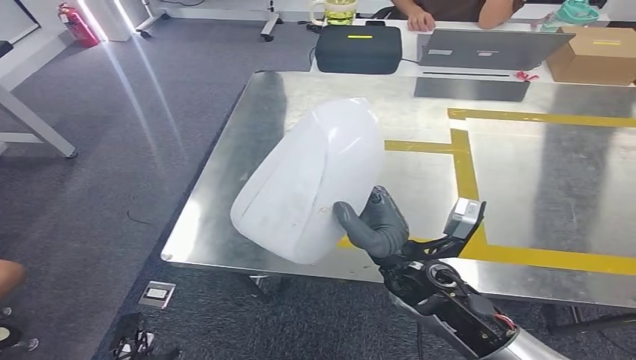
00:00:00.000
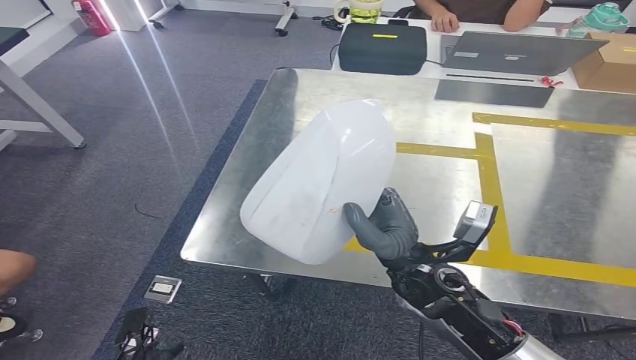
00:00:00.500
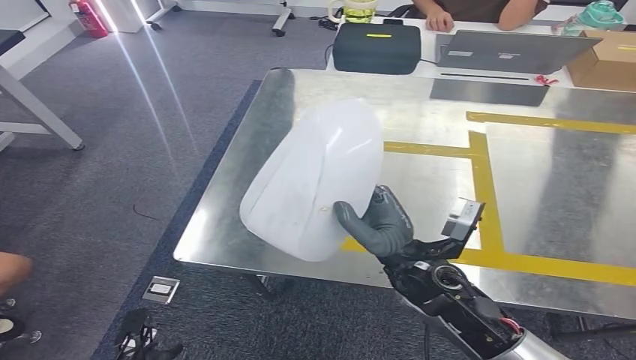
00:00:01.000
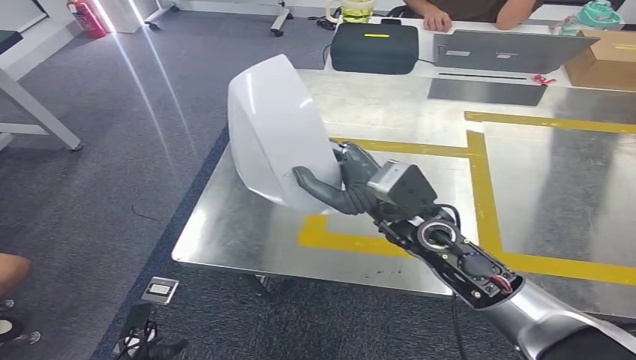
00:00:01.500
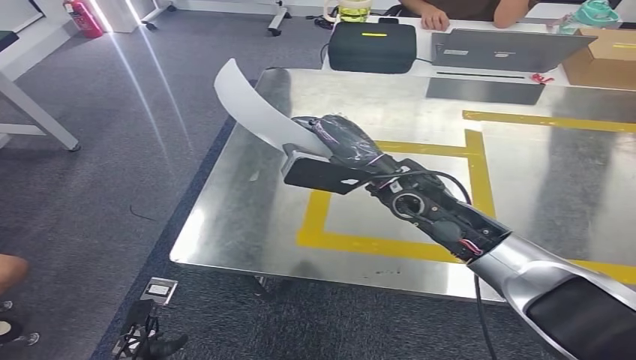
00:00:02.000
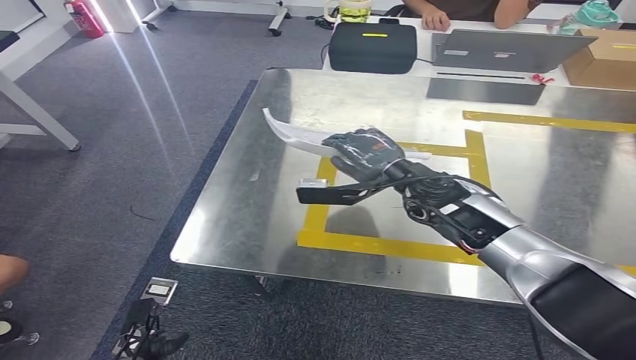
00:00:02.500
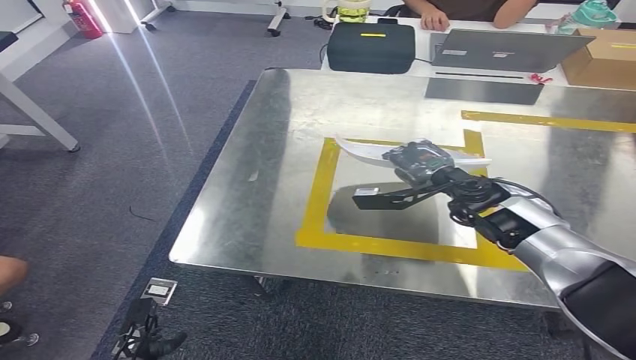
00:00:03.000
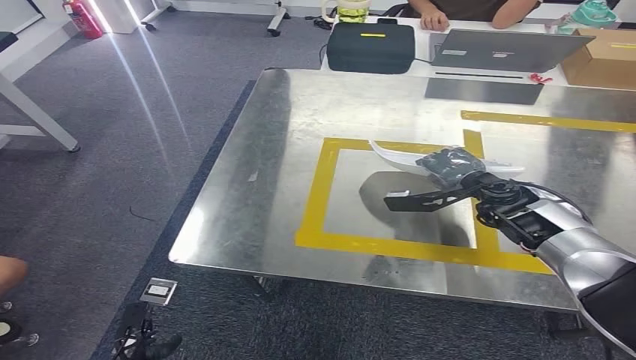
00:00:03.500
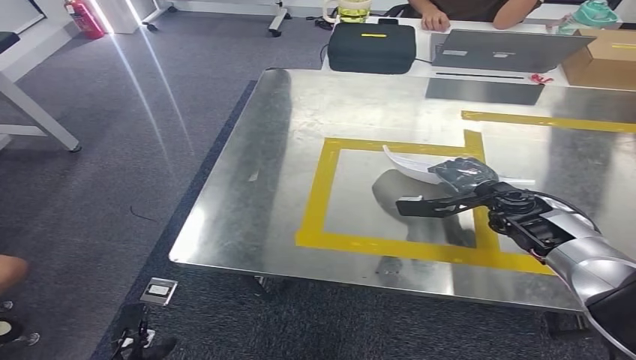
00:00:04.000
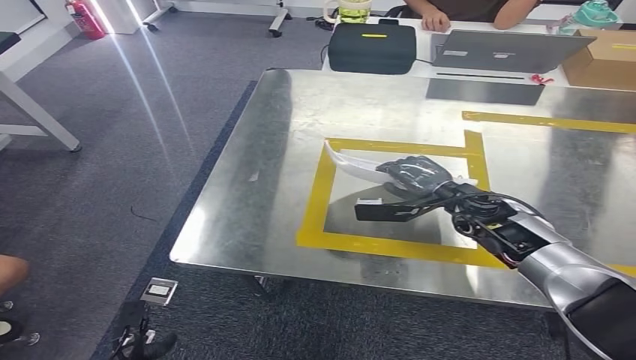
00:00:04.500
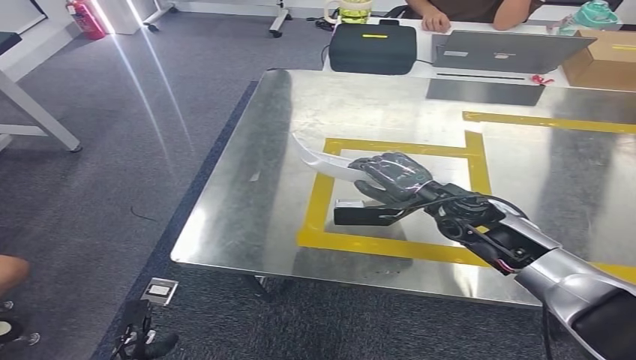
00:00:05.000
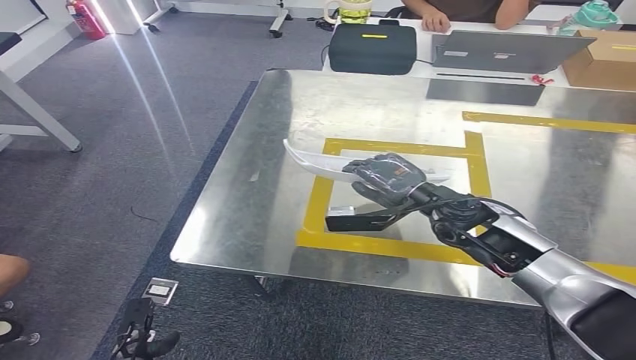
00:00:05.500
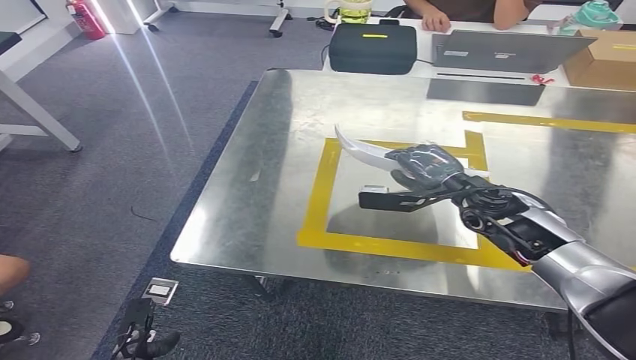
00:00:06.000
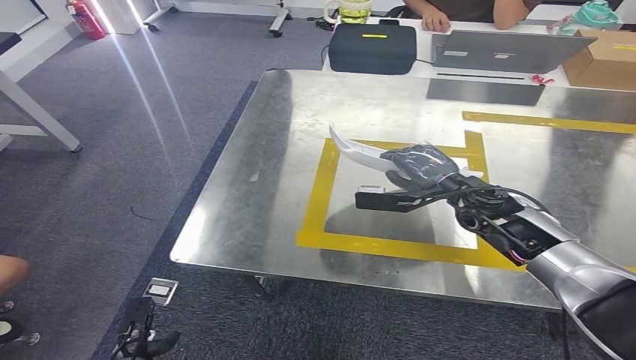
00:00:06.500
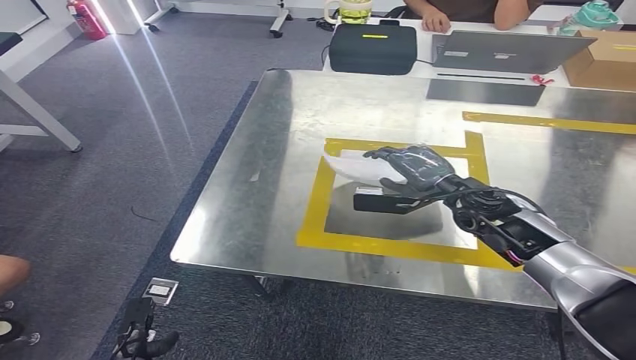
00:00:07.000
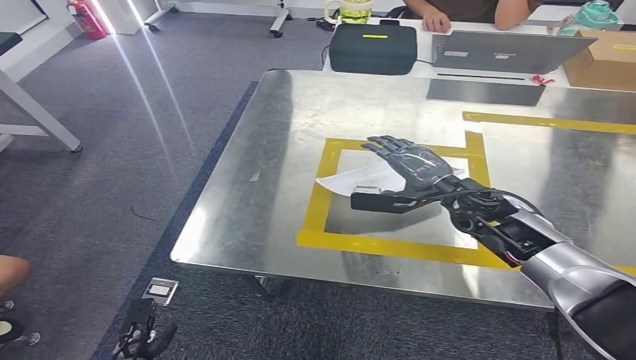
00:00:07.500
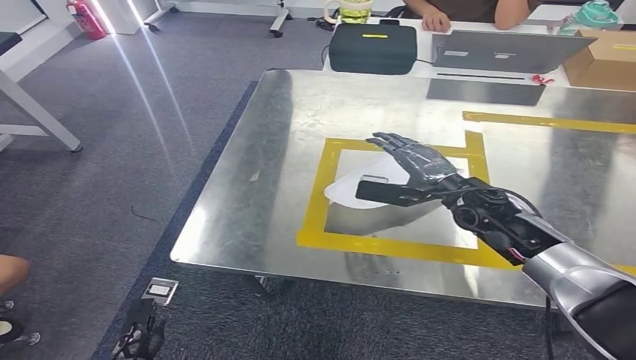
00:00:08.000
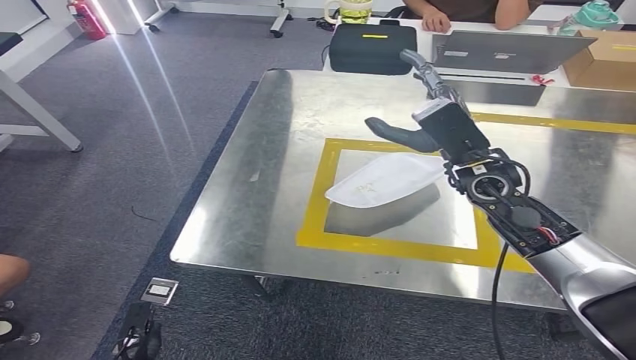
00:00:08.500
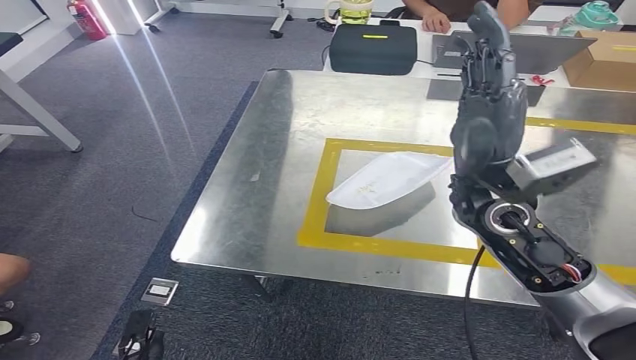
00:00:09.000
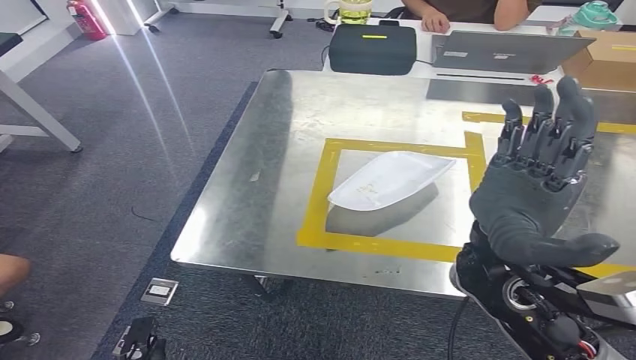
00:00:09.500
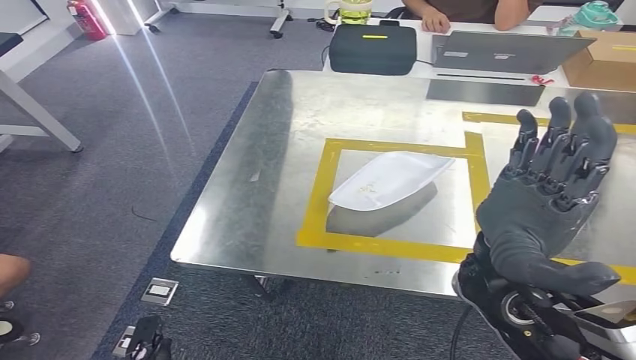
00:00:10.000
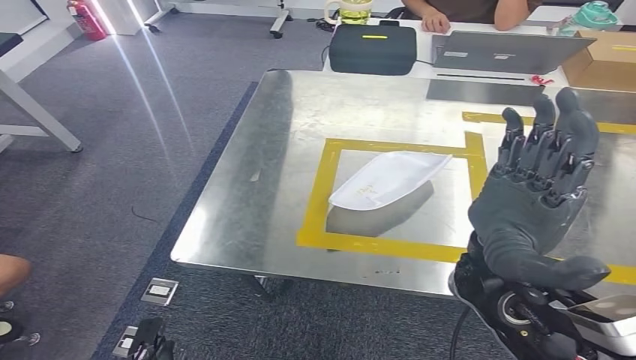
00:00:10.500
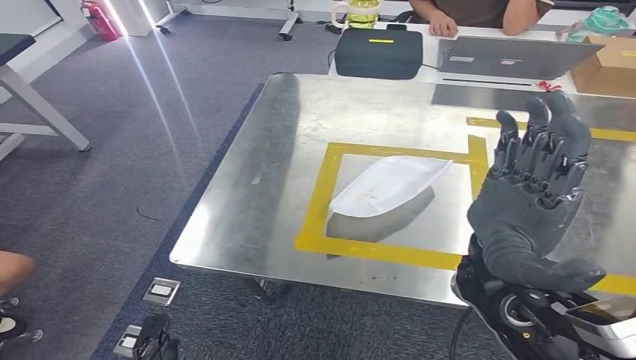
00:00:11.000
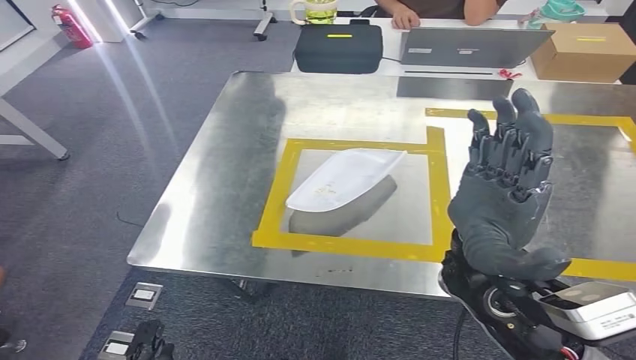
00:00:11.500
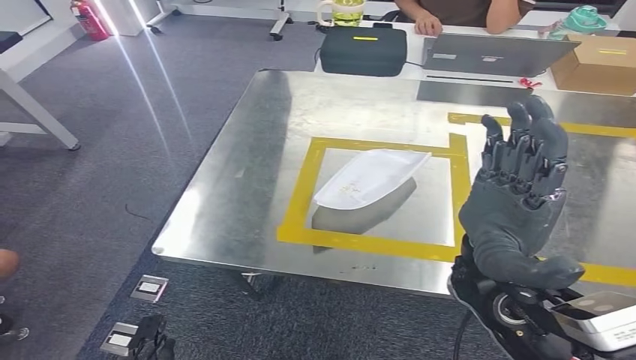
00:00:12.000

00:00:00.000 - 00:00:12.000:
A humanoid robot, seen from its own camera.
Step, 00:00:01.000 - 00:00:10.000: Insert the small parts into the corresponding holes on the workbench.
00:00:02.000 - 00:00:04.000: The right hand travels to the right and downward by some 25 cm.
00:00:04.000 - 00:00:06.000: The right hand travels to the left by some 10 cm.
00:00:06.000 - 00:00:08.000: The hands stay close to where they were, moving slightly.
00:00:08.000 - 00:00:10.000: The right hand goes roughly 20 cm backward and upward.

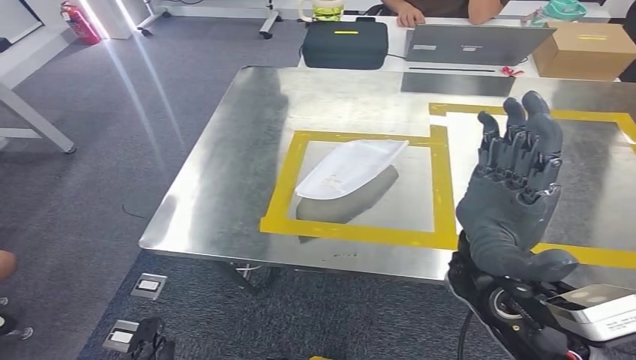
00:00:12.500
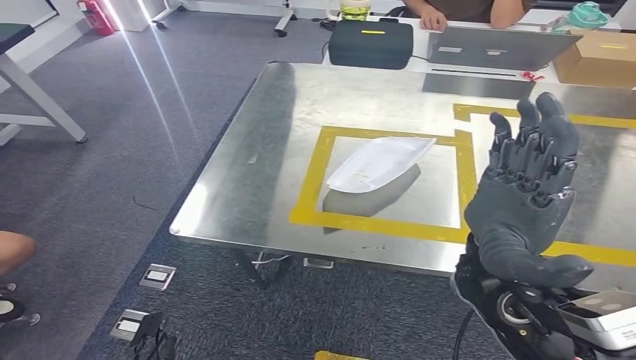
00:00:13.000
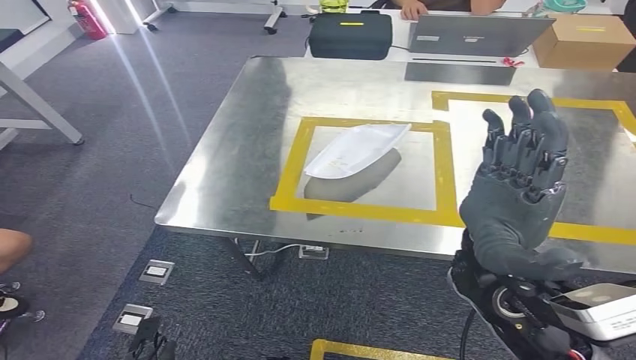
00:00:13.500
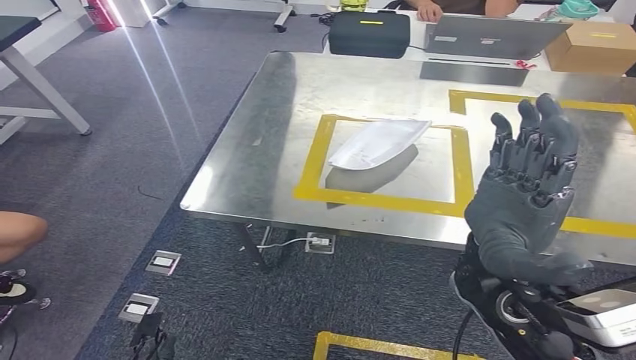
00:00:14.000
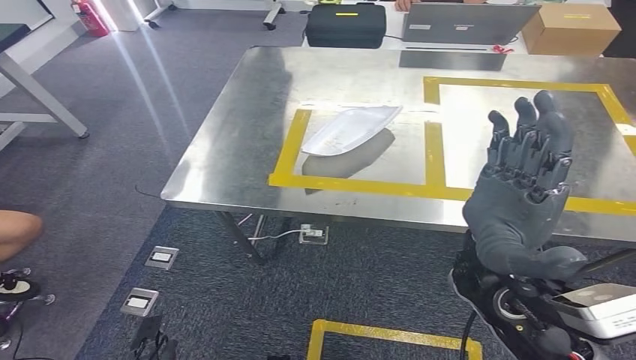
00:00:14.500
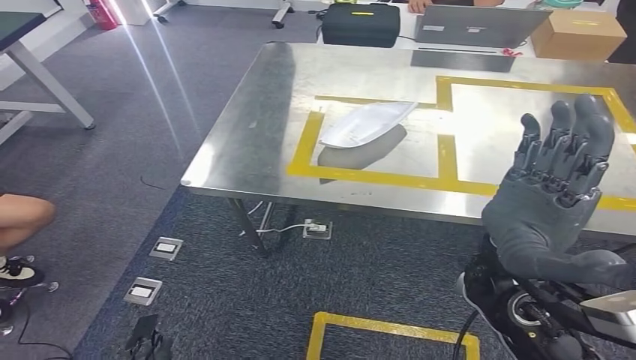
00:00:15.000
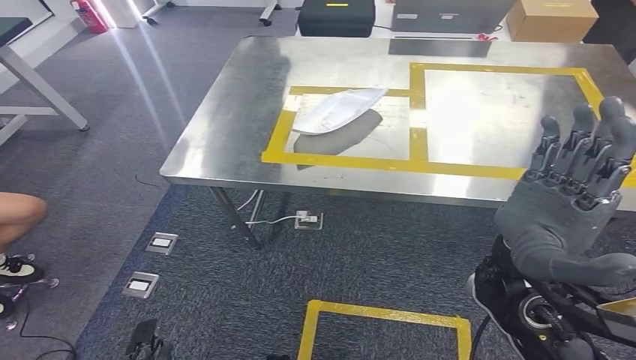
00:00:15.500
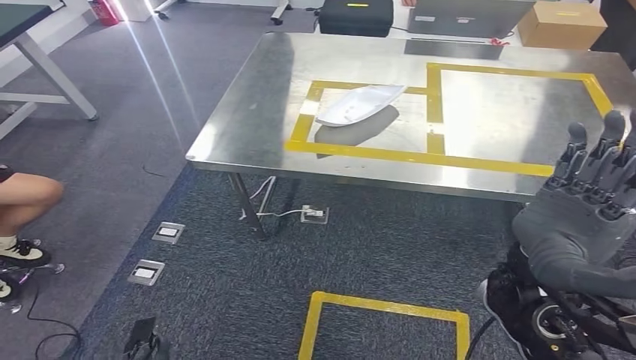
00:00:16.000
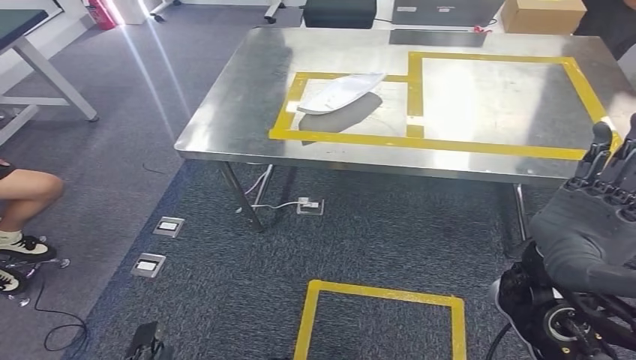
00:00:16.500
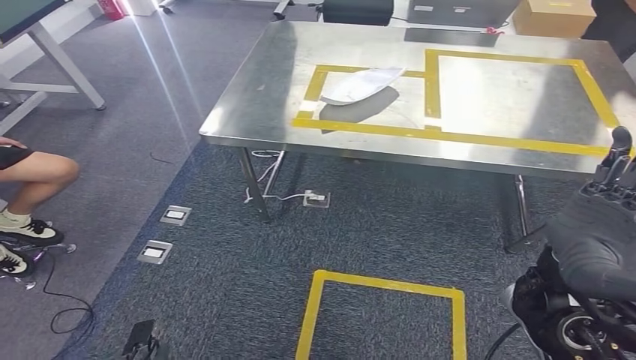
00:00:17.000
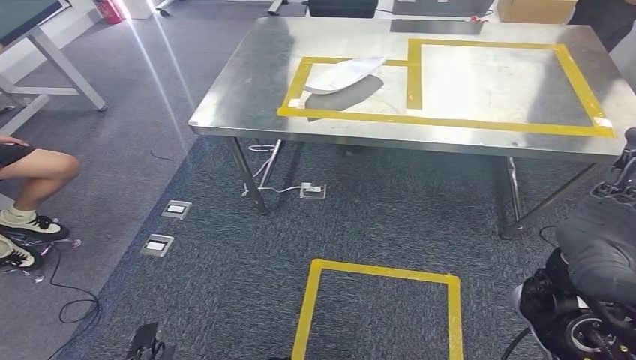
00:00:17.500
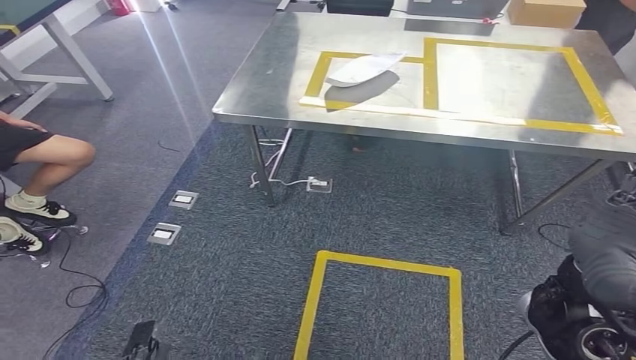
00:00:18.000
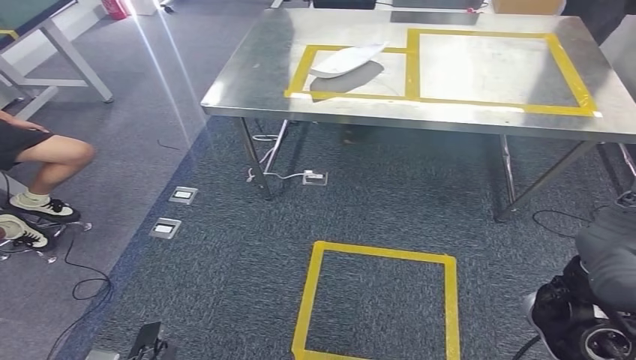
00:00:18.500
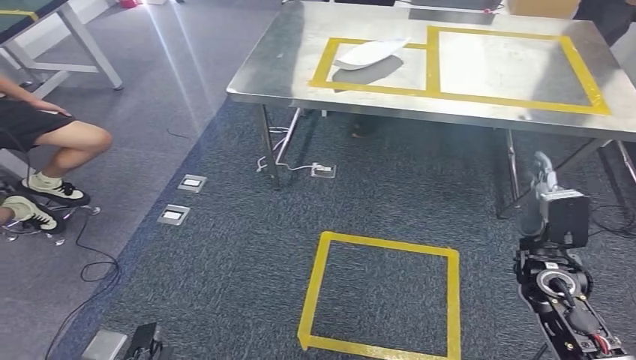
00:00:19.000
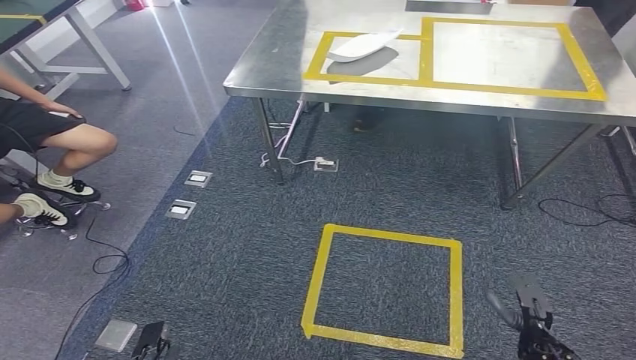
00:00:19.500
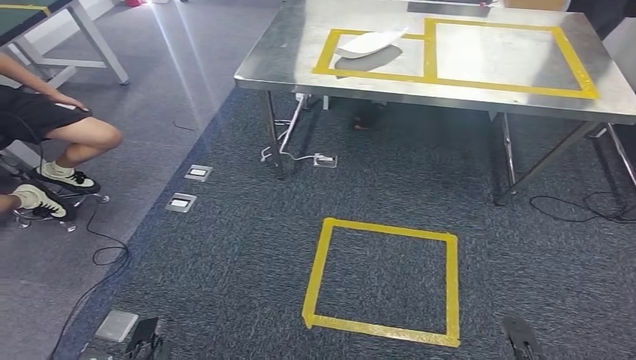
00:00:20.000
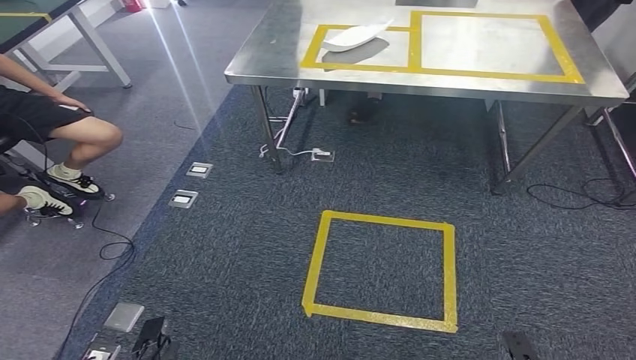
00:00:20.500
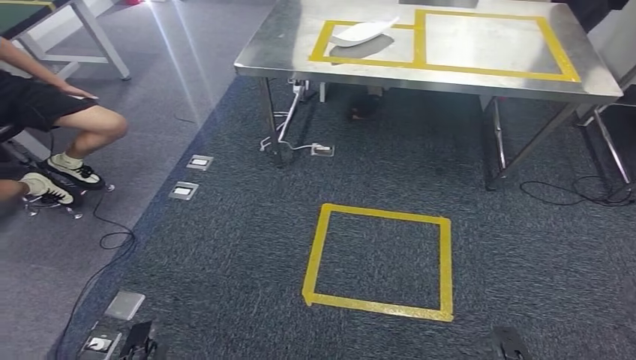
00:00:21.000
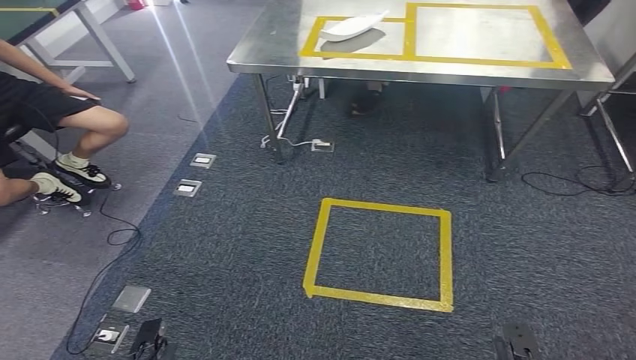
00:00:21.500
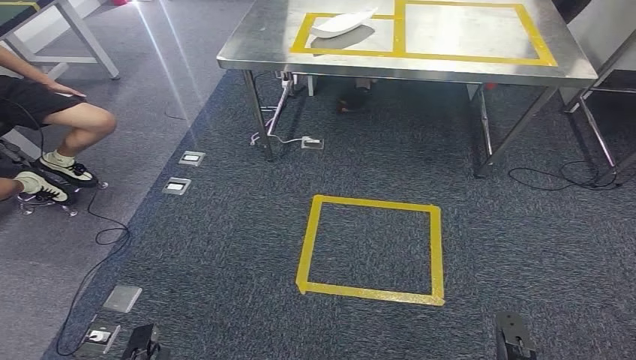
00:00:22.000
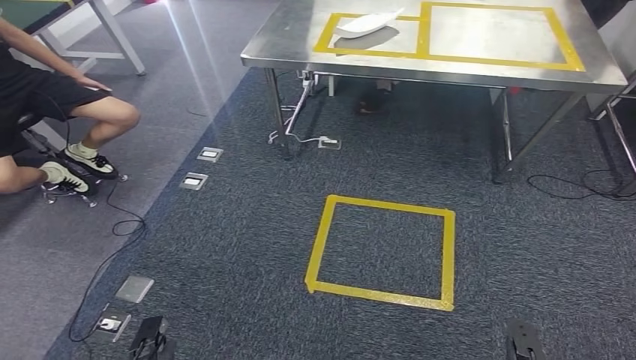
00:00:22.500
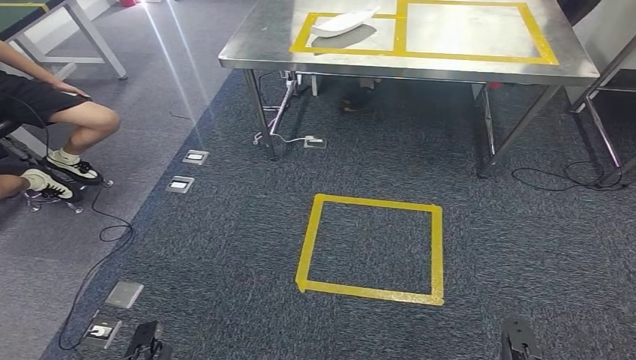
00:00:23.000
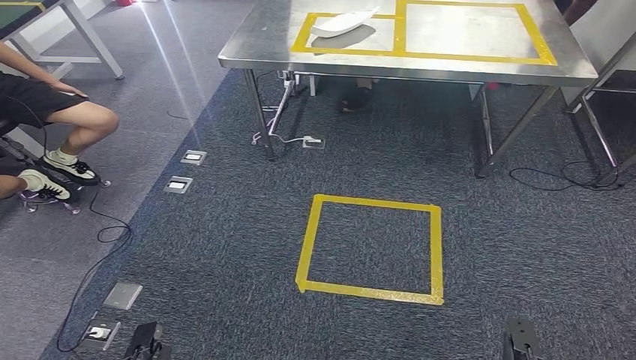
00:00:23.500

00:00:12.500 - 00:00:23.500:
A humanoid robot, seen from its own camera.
00:00:21.500 - 00:00:23.500: The hands make only small movements.
